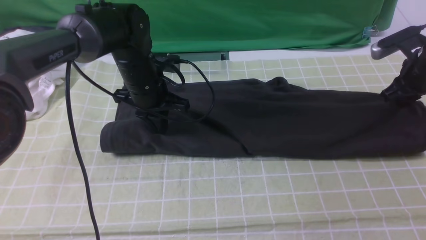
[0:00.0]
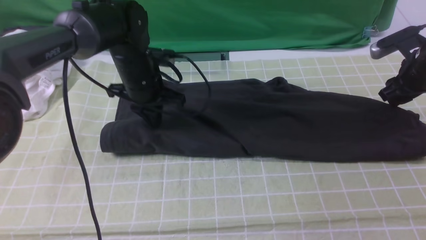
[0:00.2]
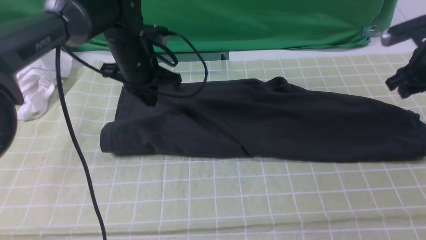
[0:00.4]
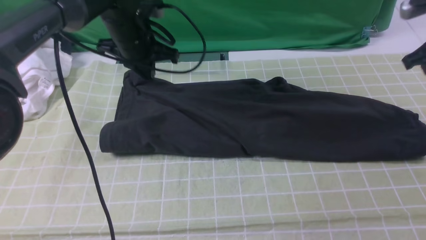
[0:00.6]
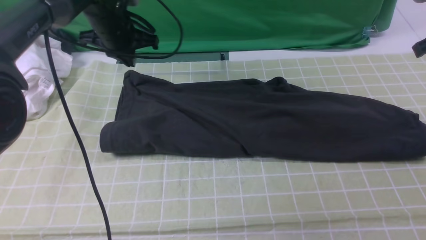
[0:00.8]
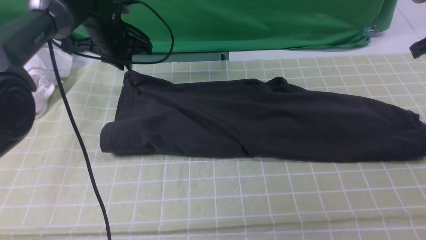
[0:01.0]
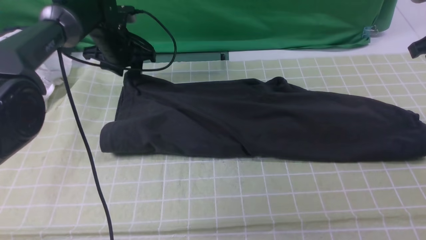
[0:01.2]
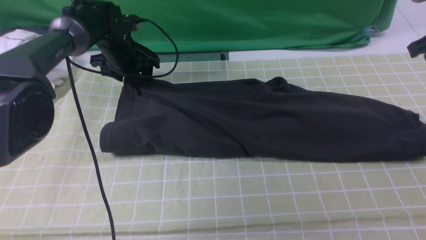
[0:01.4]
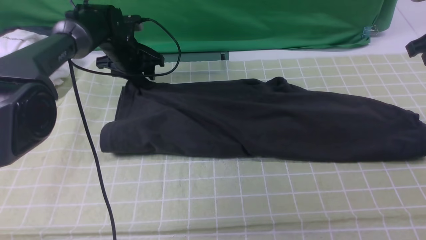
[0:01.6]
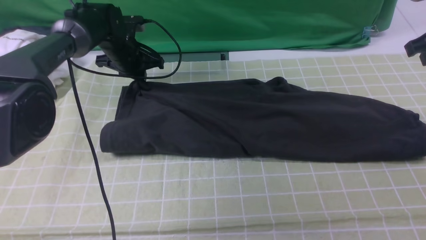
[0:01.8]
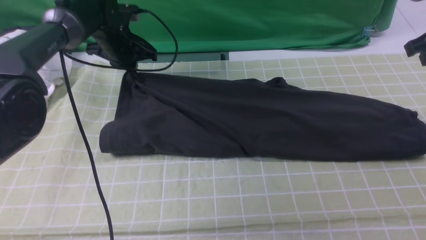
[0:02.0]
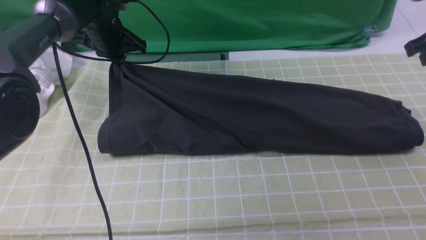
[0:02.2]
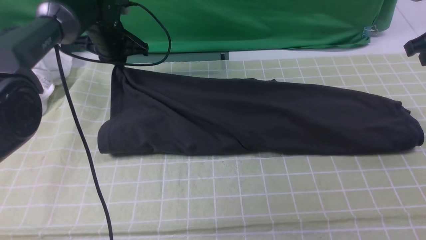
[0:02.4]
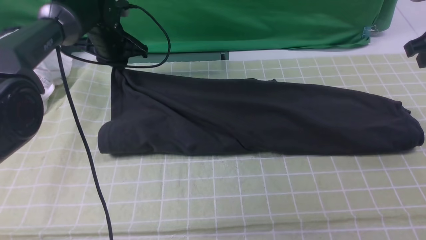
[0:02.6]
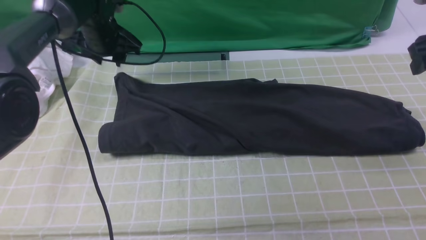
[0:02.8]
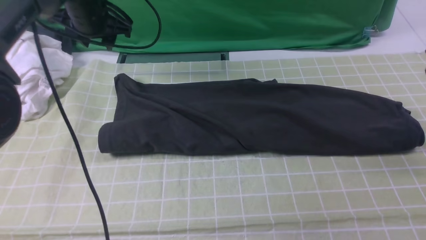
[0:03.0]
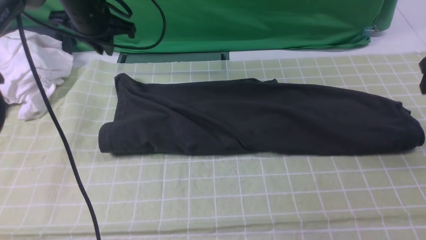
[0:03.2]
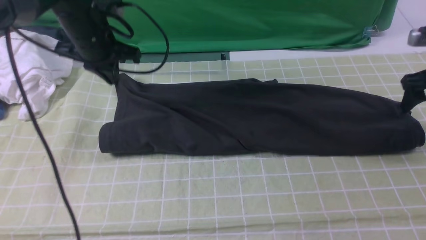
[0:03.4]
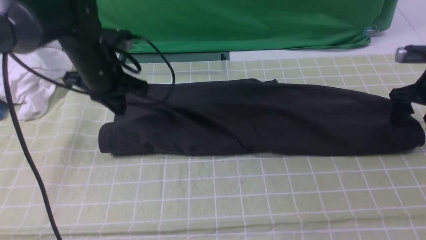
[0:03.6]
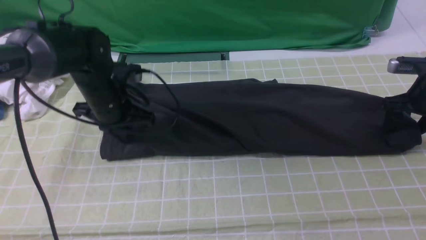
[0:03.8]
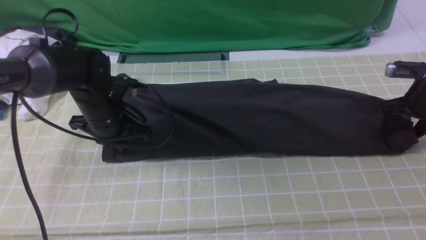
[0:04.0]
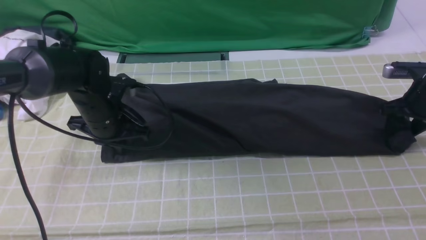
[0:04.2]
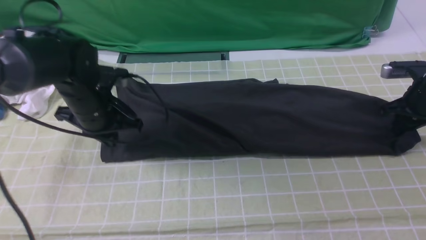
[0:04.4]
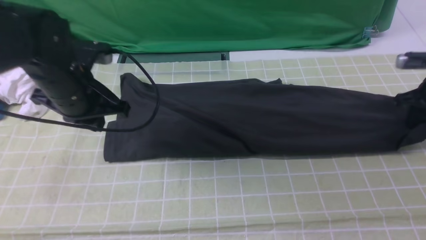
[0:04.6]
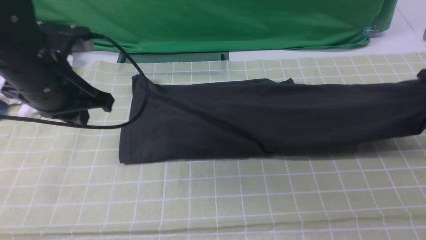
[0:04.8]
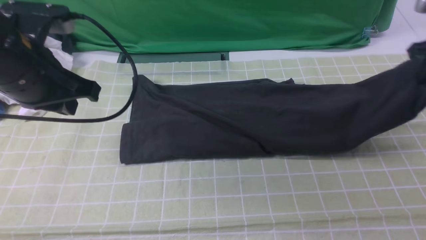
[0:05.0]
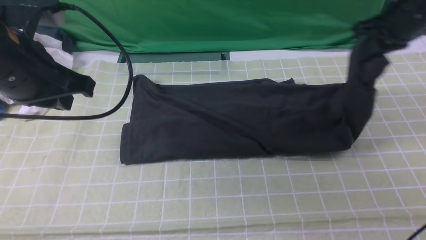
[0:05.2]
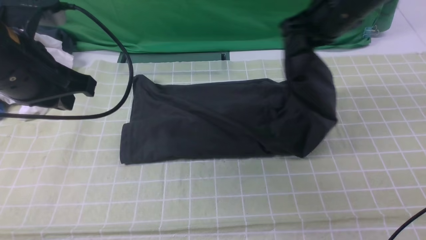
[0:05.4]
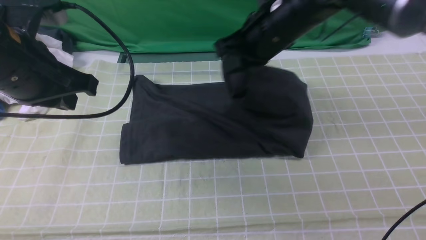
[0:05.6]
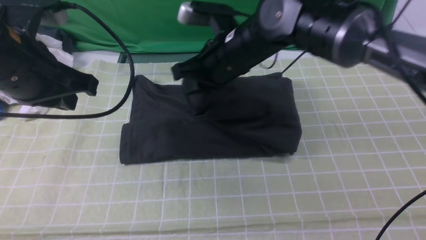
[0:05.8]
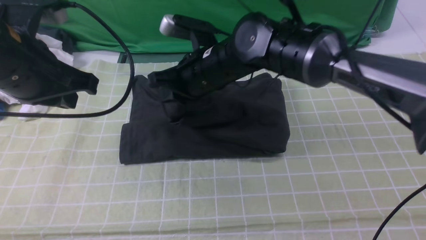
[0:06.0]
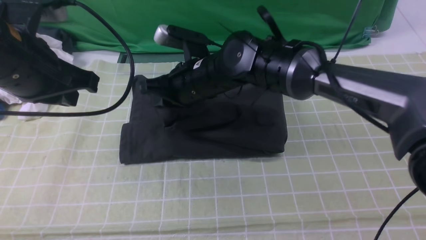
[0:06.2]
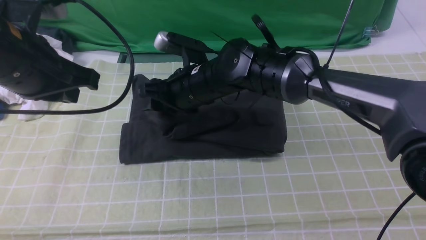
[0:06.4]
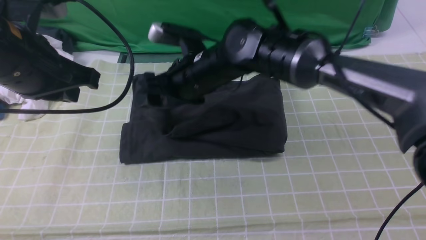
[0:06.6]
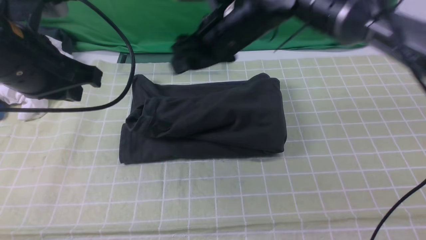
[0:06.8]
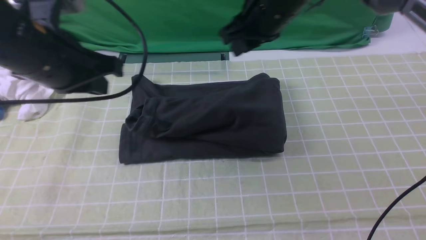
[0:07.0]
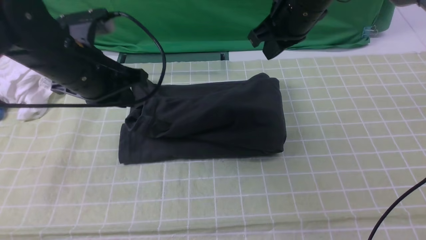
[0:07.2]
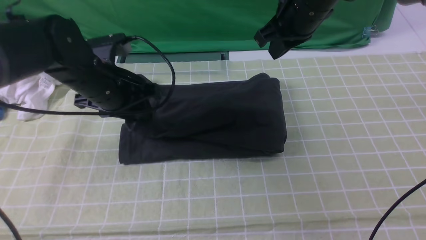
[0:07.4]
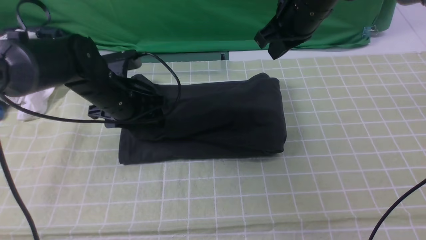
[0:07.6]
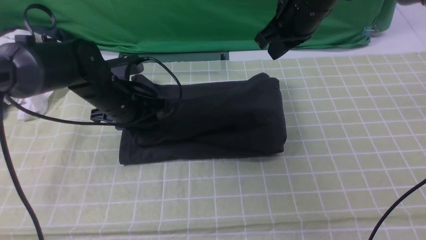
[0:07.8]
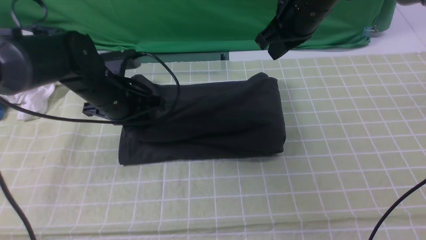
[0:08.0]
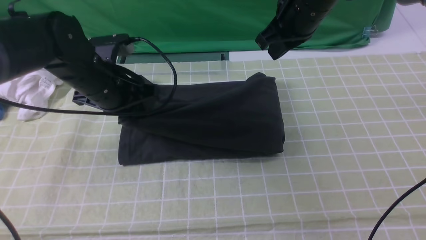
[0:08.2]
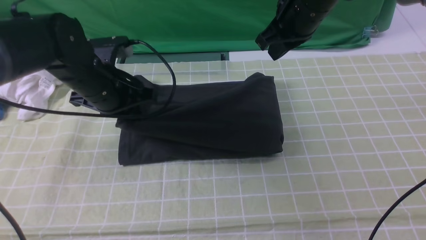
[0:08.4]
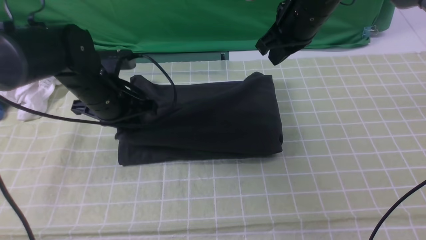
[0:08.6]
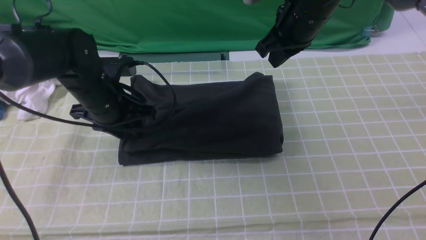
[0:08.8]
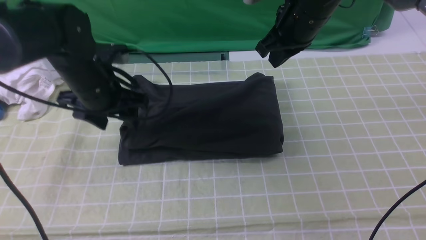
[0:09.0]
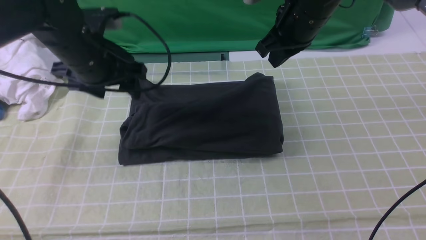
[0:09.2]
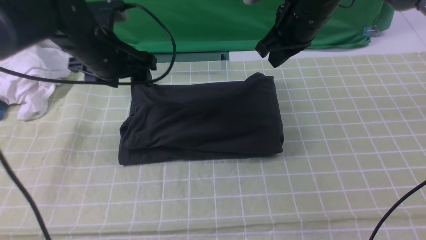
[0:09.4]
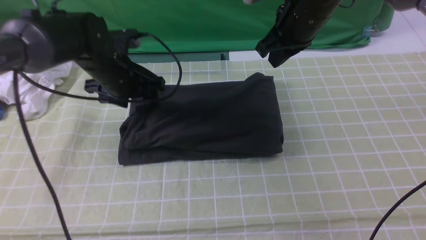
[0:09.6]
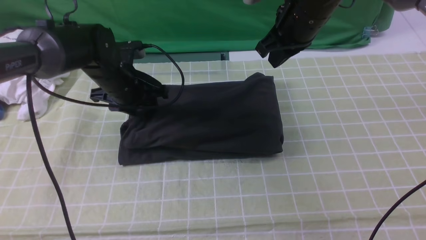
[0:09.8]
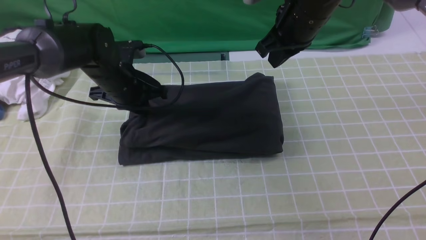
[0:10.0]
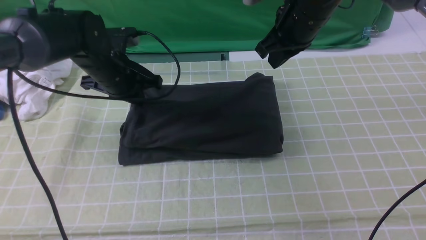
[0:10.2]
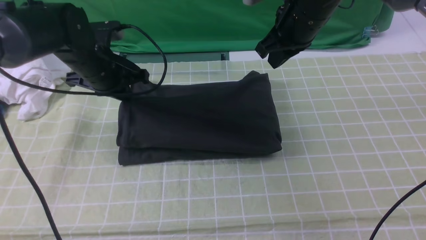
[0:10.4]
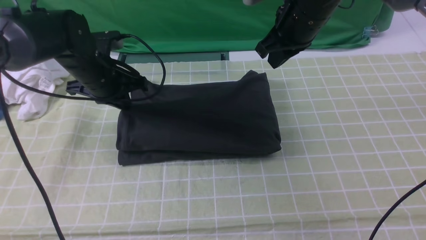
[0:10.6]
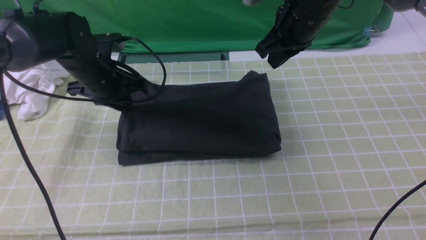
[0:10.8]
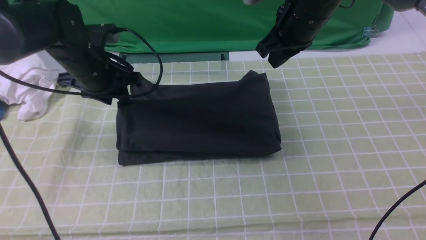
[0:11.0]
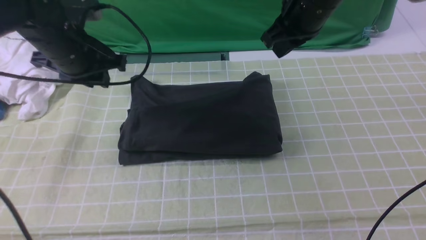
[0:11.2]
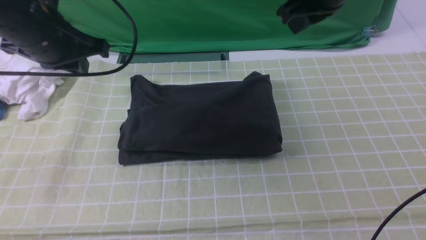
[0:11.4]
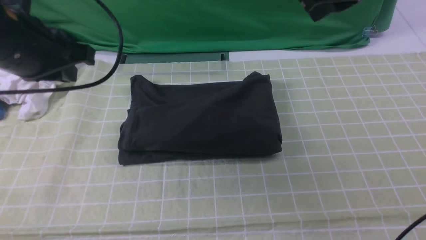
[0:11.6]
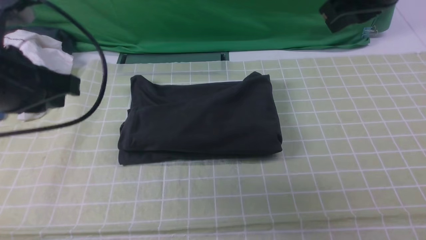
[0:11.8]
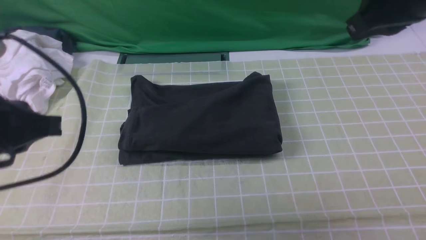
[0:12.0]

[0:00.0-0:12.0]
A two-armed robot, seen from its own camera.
Step, 0:00.0 to 0:04.4: use the right arm to clamp the right edge of the fabric.
Step, 0:04.6 to 0:06.8: use the right arm to drag the right edge of the fabric to the left and folds it over the left edge.
0:00.0 to 0:01.6: The right gripper shifts about 10 cm upward. The left gripper shifts approximately 15 cm forward and to the left, and opens up.
0:01.6 to 0:03.0: The left gripper travels upward by about 10 cm, and closes, then reopens. Meanwhile the right gripper opens.
0:03.0 to 0:04.4: The left gripper heads backward, covering about 15 cm, and closes, while the right gripper goes about 15 cm downward, and closes.
0:04.4 to 0:06.0: The left gripper goes about 15 cm upward and backward. The right gripper travels to the left by approximately 40 cm.
0:06.0 to 0:07.6: The left gripper heads downward and forward, covering about 20 cm, and opens its fingers, while the right gripper goes some 15 cm to the right and upward, and opens, then closes again.
0:07.6 to 0:09.0: The left gripper closes, then reopens.
0:09.0 to 0:10.4: The left gripper shifts by approximately 5 cm, and closes its fingers.
0:10.4 to 0:12.0: The left gripper is displaced backward and upward by some 25 cm, while the right gripper goes roughly 20 cm backward, upward and to the right.

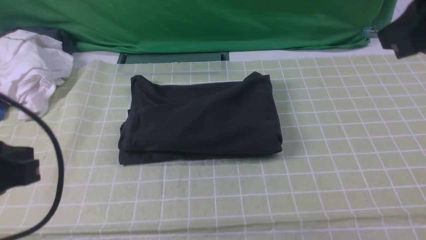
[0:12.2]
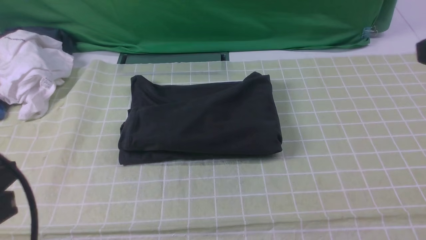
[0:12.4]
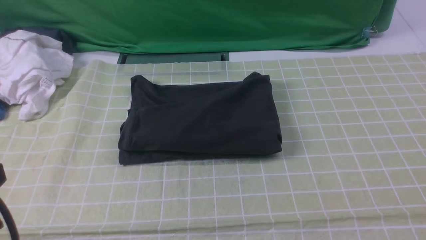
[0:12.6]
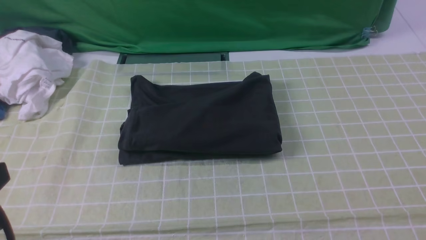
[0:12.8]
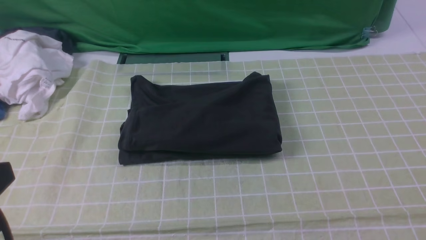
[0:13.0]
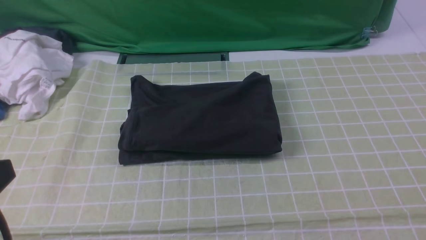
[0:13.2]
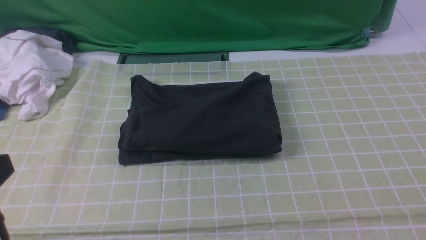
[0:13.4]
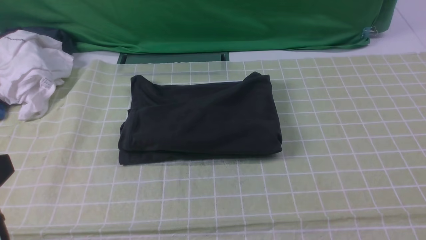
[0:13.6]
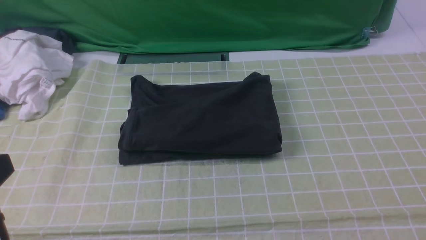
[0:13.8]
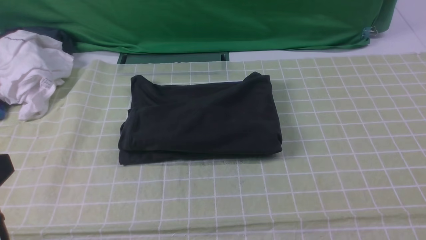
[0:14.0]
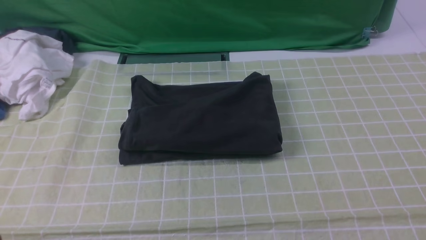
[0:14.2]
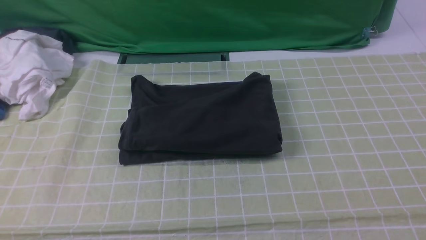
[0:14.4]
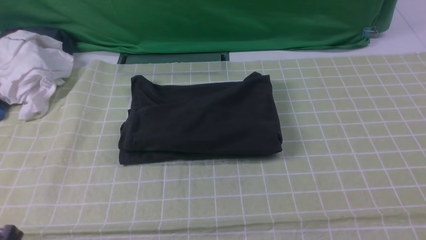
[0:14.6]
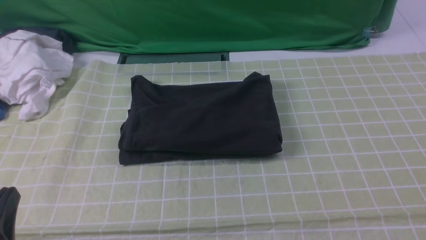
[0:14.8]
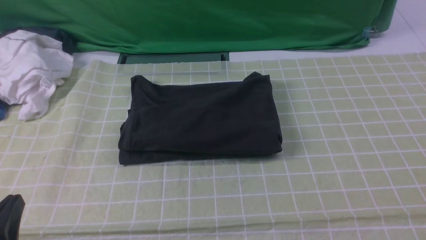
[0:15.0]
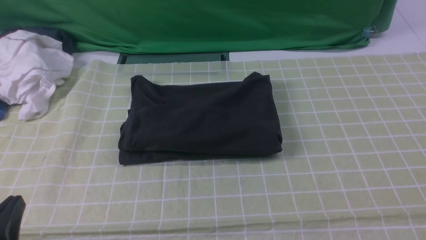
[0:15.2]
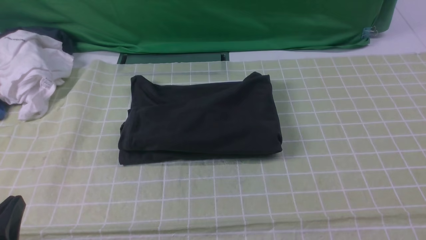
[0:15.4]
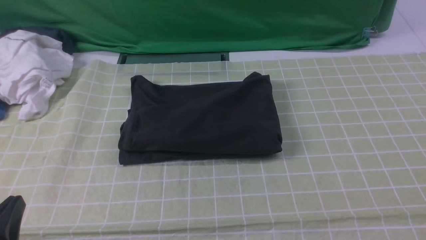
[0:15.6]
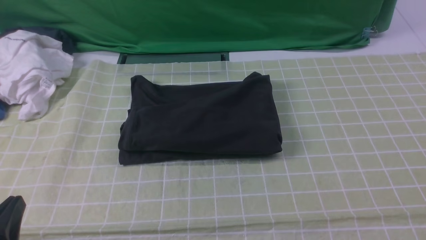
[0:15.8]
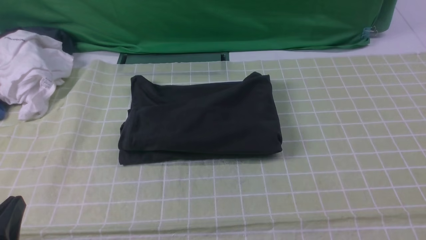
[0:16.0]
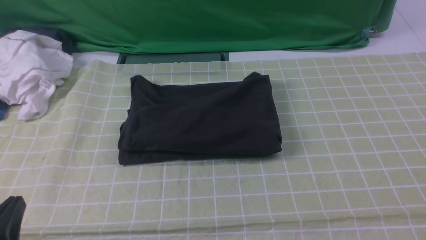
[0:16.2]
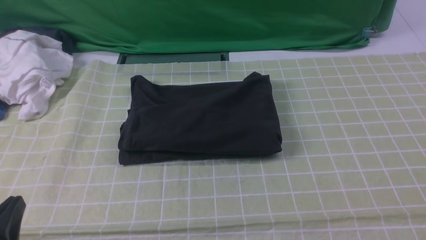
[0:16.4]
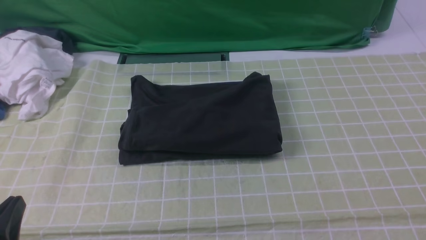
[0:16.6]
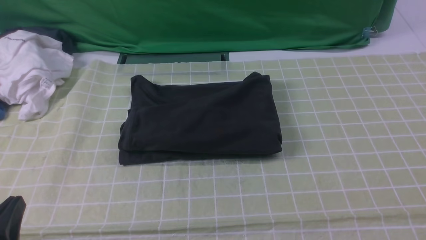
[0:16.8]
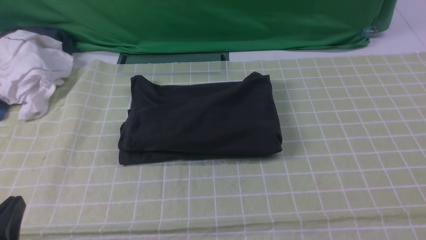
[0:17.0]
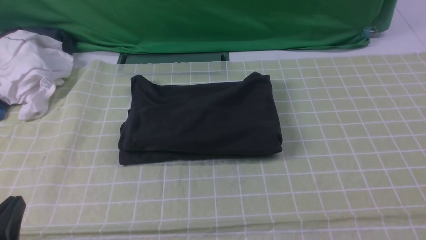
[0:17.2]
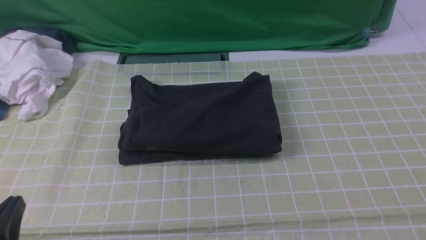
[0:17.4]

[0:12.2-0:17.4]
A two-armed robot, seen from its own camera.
0:12.2 to 0:14.0: The right gripper goes roughly 25 cm backward and to the right. Meanwhile the left gripper heads backward, covering approximately 5 cm.
0:14.0 to 0:15.6: The left gripper moves downward, some 15 cm.
